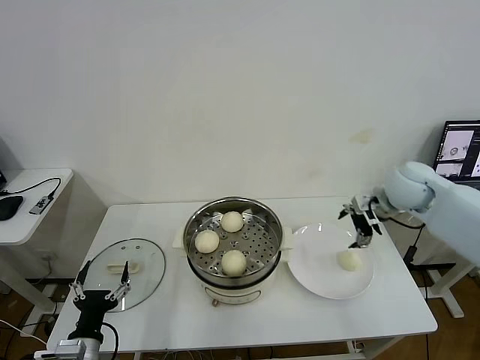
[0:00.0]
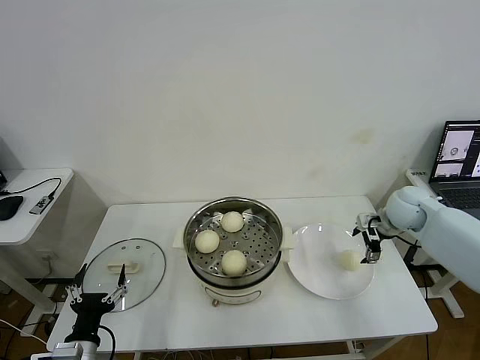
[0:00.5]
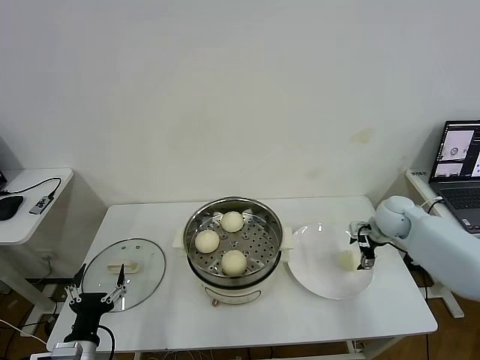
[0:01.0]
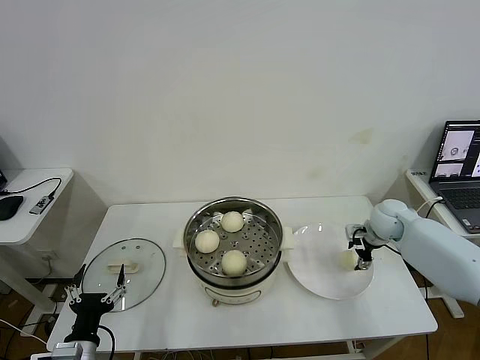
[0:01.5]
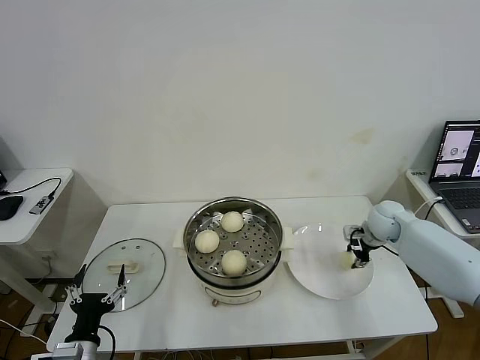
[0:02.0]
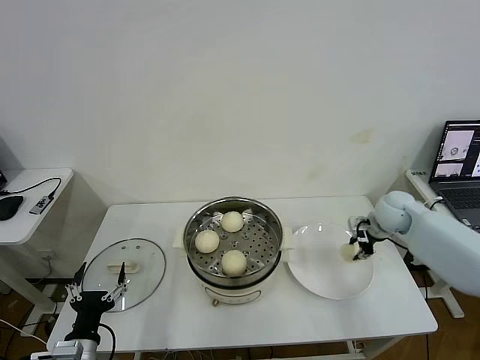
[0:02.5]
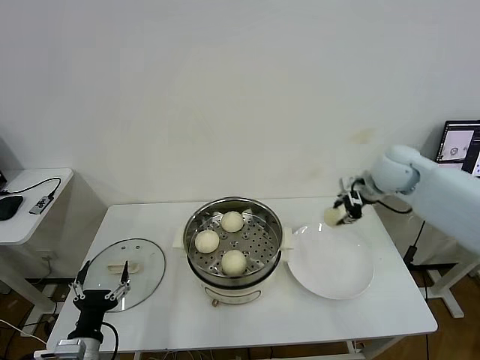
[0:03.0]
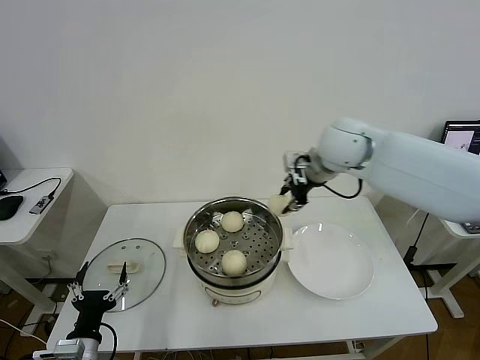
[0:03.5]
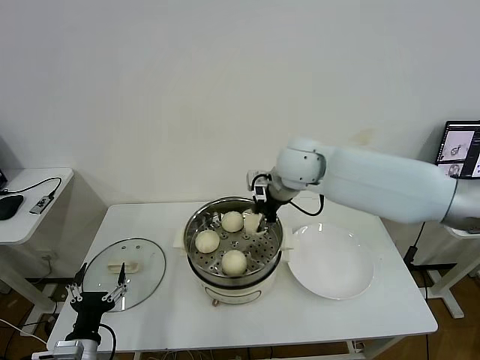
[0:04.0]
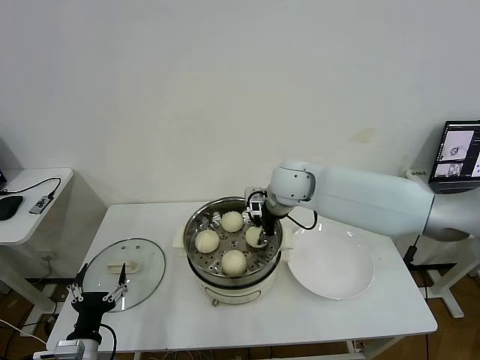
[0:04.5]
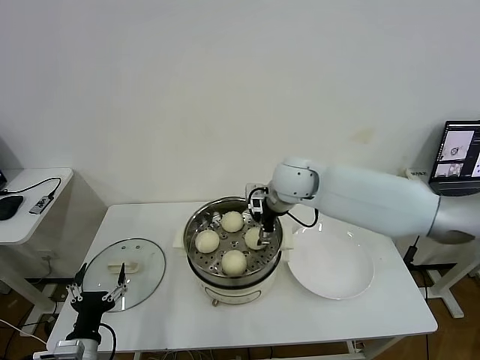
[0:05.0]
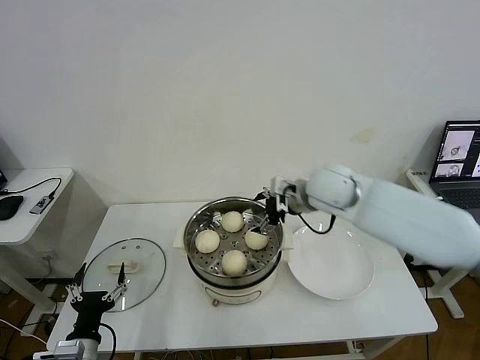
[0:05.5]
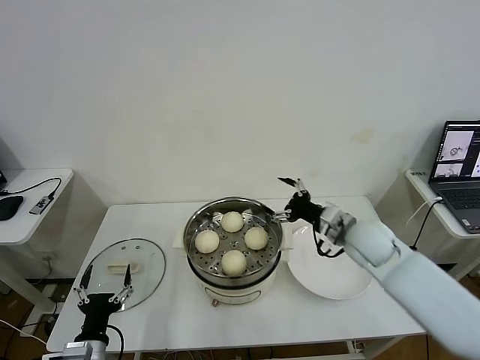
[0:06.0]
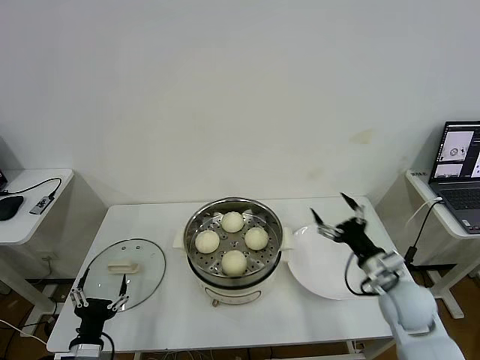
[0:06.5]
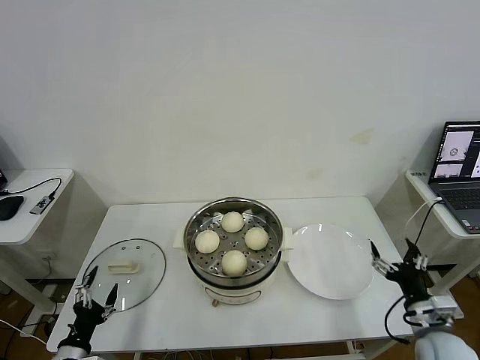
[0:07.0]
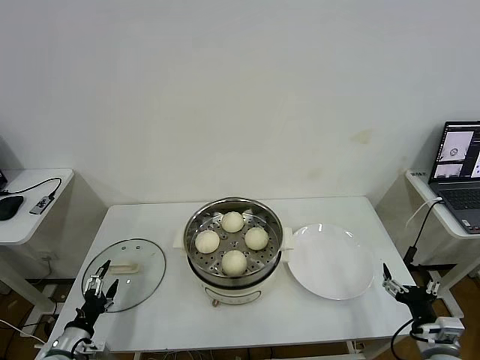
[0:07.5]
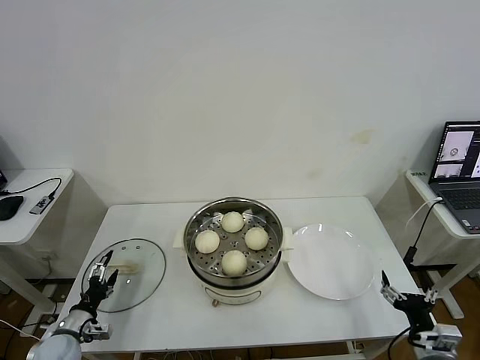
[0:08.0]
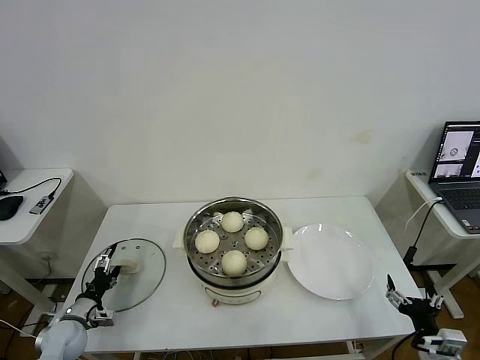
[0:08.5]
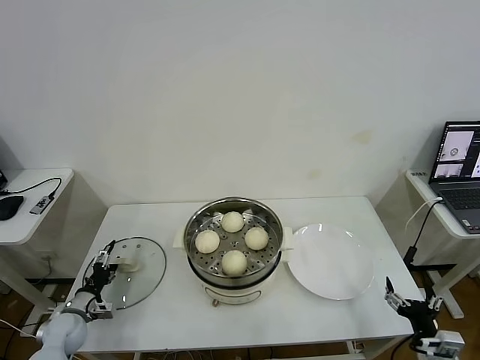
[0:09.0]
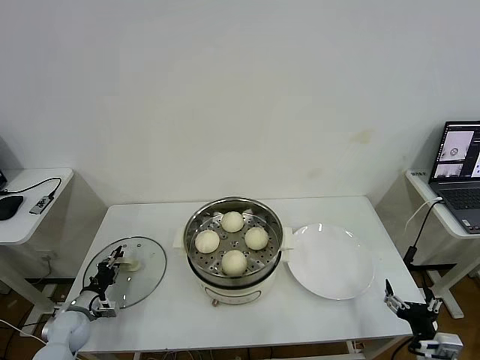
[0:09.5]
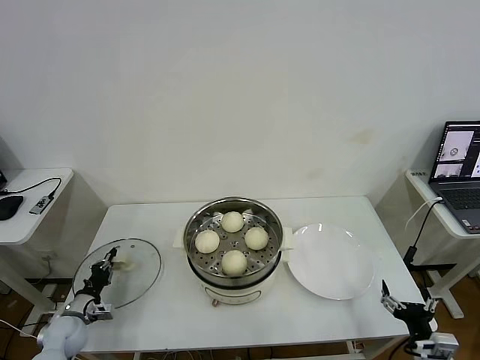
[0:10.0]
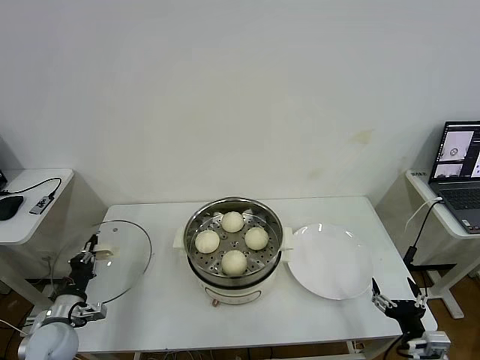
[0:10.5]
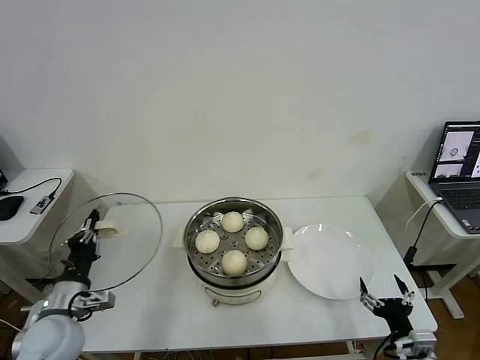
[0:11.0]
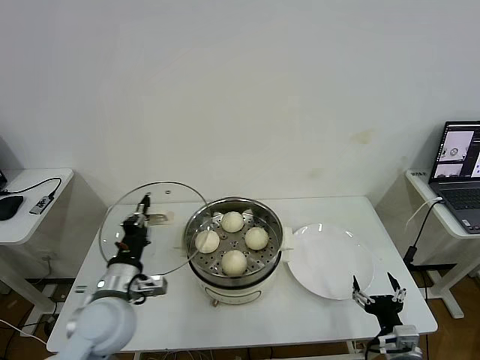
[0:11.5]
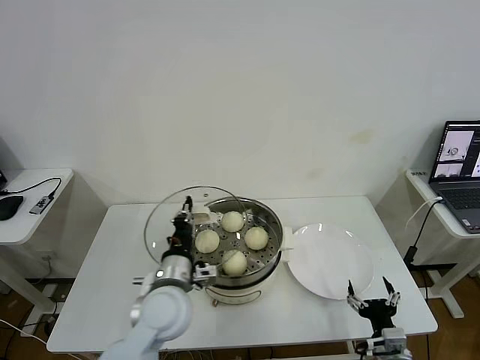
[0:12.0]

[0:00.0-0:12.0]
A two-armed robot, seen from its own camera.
Task of the whole recording: take steamed baozi put them in steamer then cover it.
Step, 0:00.0 to 0:02.0: Grasp the baozi in the plate with right gripper.
Step, 0:02.5 to 0:05.0: Place the baozi on the steamer with right gripper.
Step, 0:05.5 to 0:09.5: Grasp the pot lid with left gripper.
0:00.0 to 0:02.0: The right gripper shifts about 15 cm downward, and closes.
0:02.0 to 0:04.0: The right gripper is displaced to the left and upward by approximately 30 cm.
0:04.0 to 0:06.0: The right gripper travels to the right, downward and backward by about 20 cm, and opens its fingers.
0:06.0 to 0:08.0: The left gripper moves to the left, forward and downward, roughly 15 cm. The right gripper heads backward, downward and to the right, covering about 30 cm.
0:08.0 to 0:10.0: The left gripper is displaced forward by roughly 5 cm, and closes.
0:10.0 to 0:12.0: The right gripper heads to the left, covering roughly 5 cm, while the left gripper heads to the right and upward, covering about 35 cm.

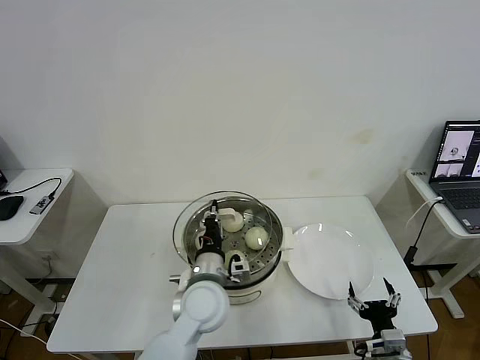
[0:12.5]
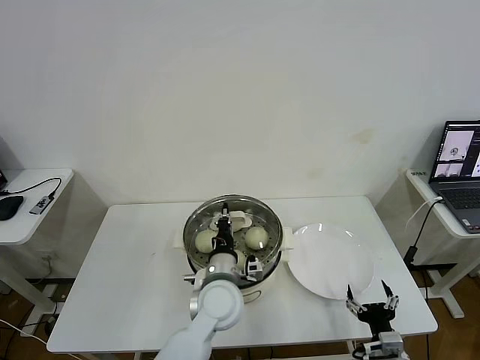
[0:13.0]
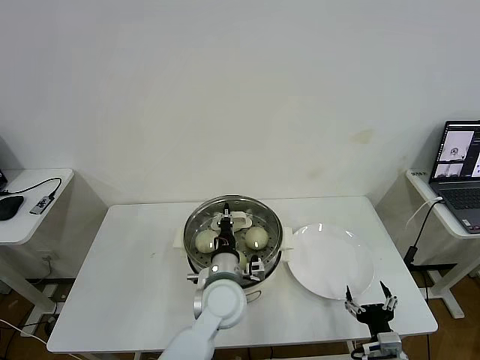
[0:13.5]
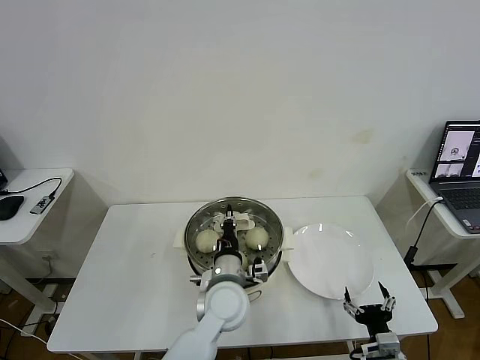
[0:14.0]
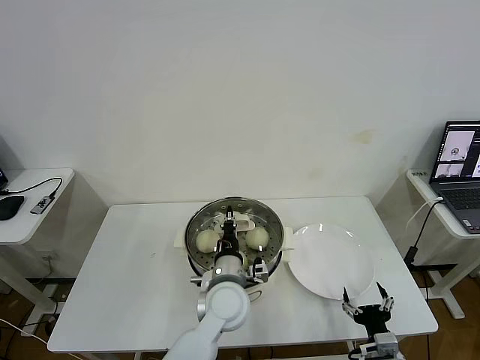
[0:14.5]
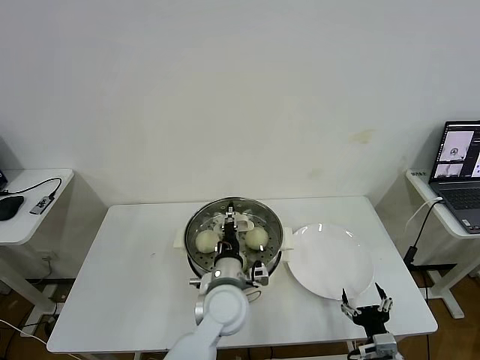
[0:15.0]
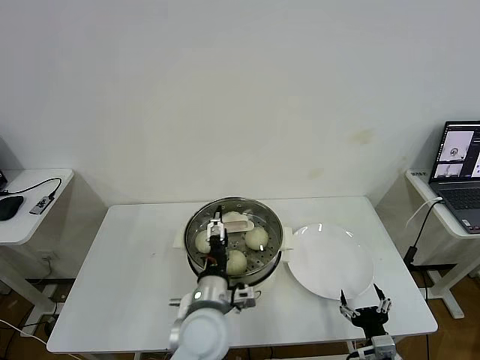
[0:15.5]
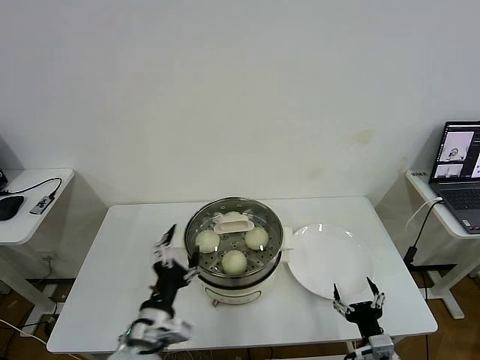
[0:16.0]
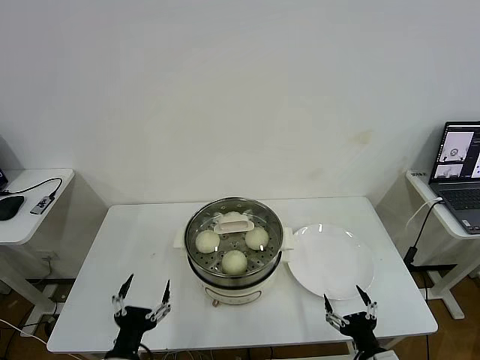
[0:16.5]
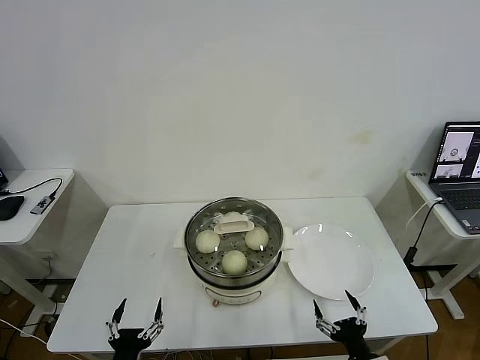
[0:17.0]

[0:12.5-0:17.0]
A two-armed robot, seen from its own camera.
Task of the whole recording: take steamed baozi put them in steamer then cover it.
Step, 0:12.5 to 0:15.5: Place the pot lid on the steamer with left gripper.
0:12.5 to 0:14.5: The left gripper moves approximately 5 cm.
0:14.5 to 0:17.0: The left gripper heads backward and to the left, covering roughly 30 cm, and opens its fingers; the right gripper shifts by some 5 cm.
